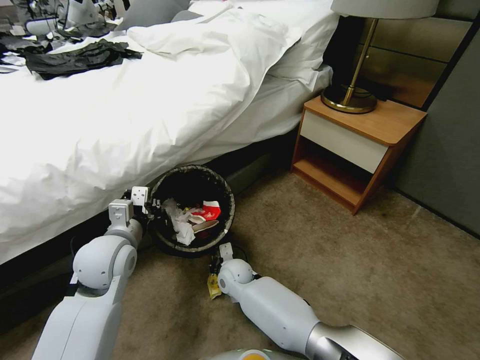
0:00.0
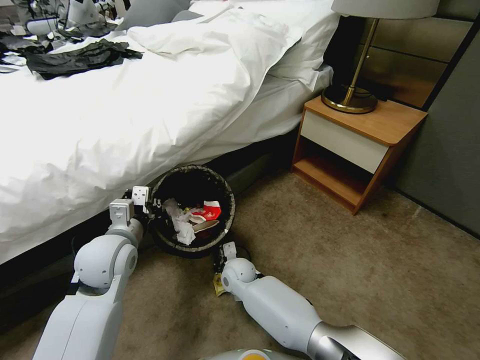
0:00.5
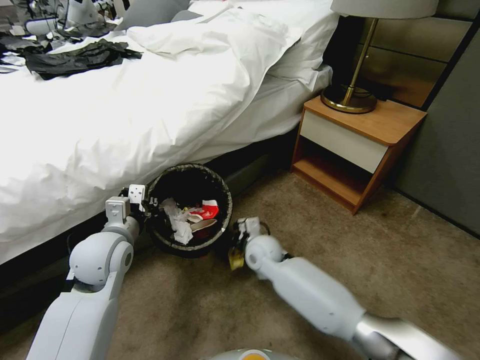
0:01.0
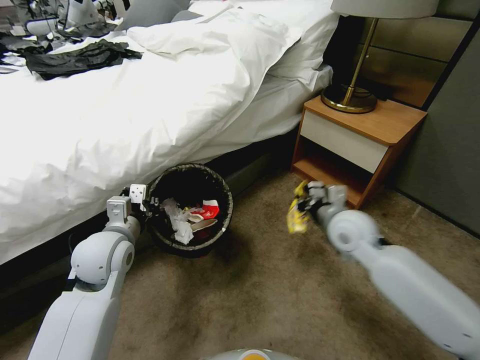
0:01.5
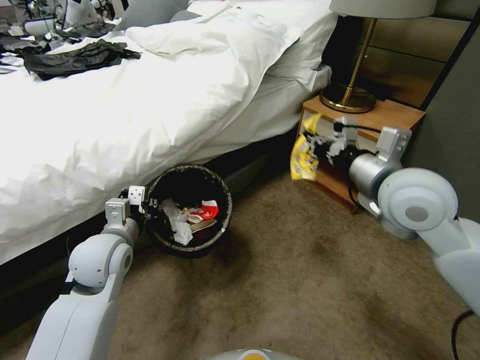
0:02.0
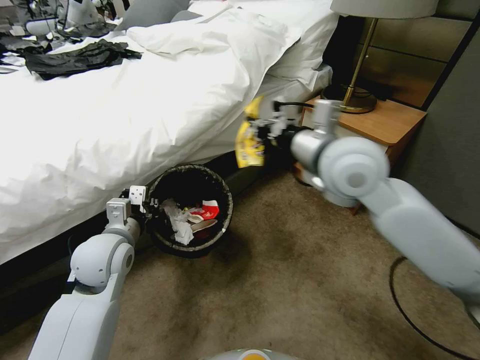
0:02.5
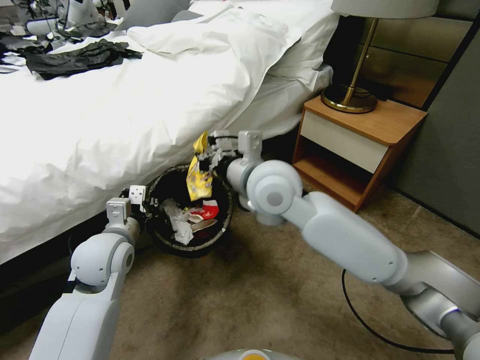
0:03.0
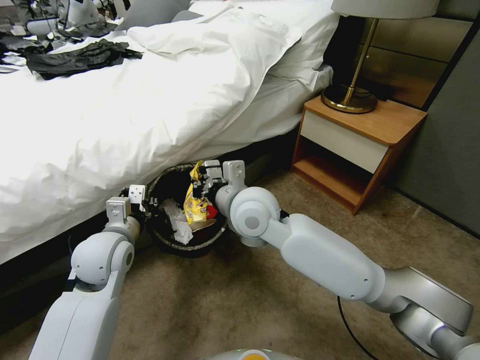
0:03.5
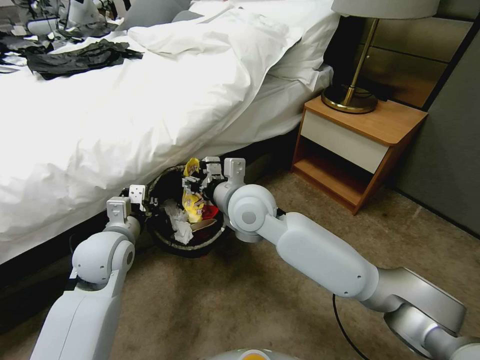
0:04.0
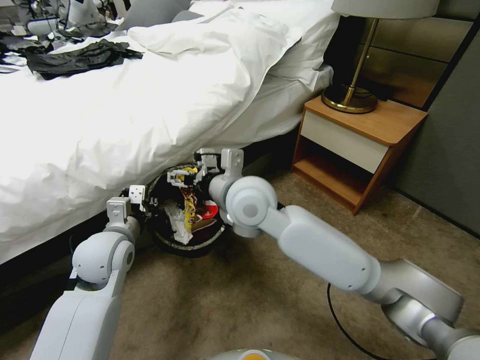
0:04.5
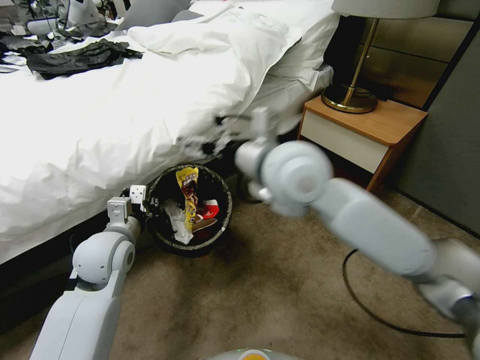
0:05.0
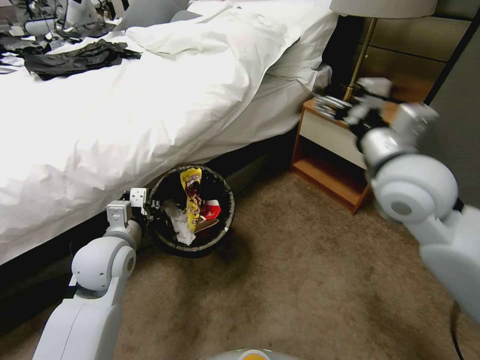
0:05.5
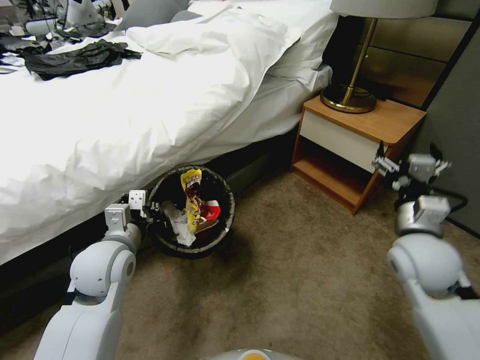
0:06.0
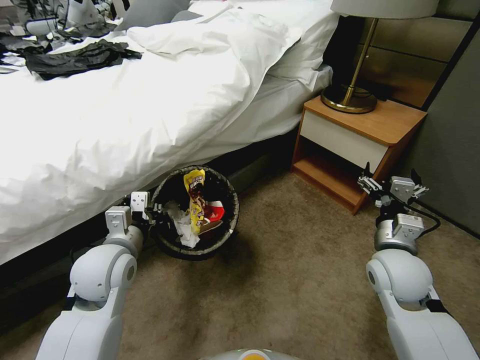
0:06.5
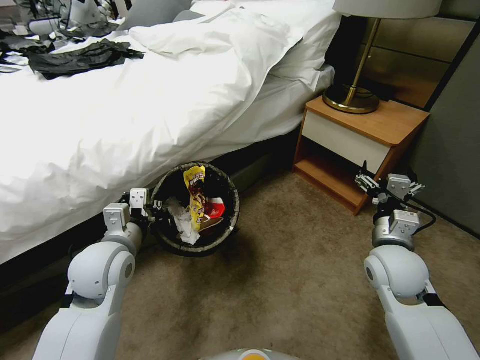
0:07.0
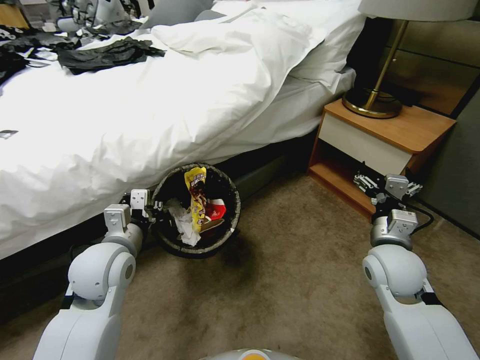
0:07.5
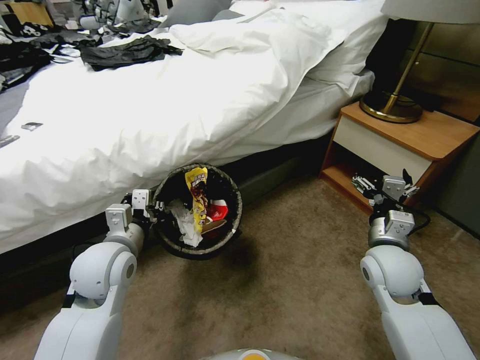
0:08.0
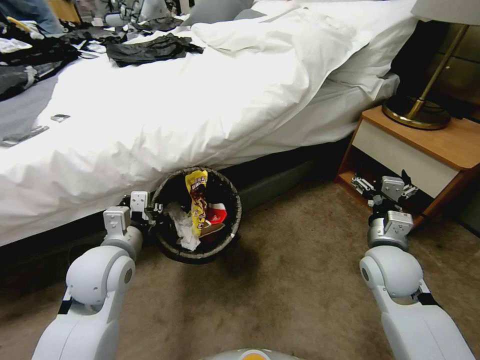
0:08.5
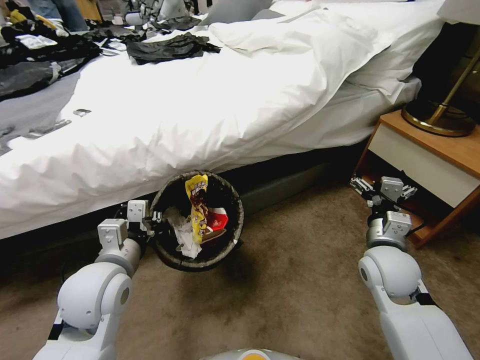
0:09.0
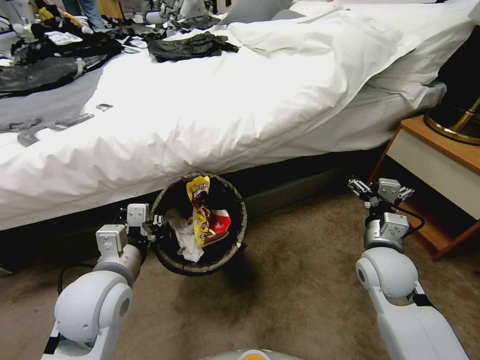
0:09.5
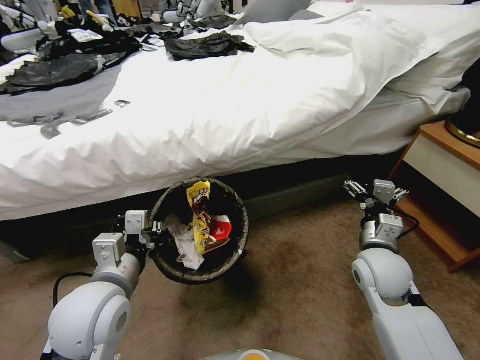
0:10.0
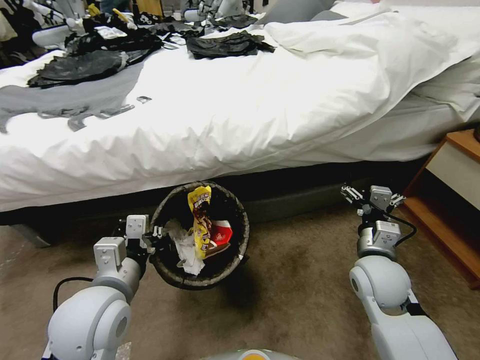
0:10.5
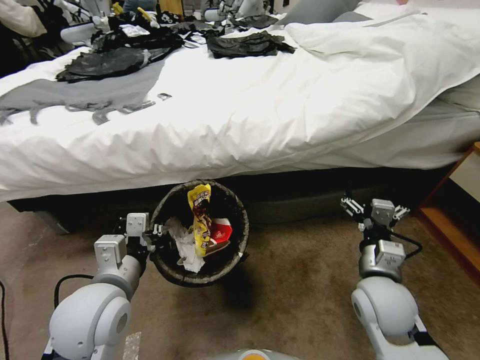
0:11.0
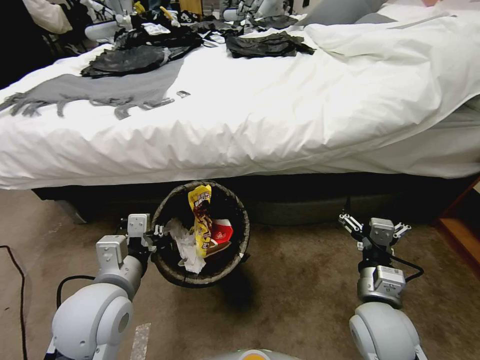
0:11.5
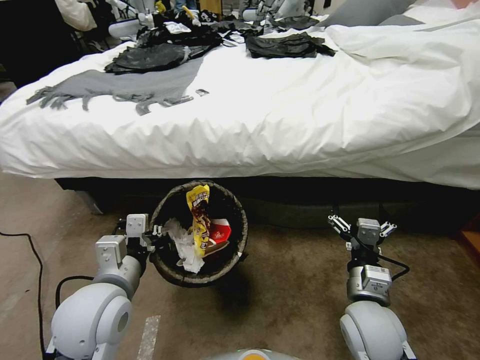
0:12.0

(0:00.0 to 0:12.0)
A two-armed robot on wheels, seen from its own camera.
Task of the whole recording: Pick up the trash bin, then pick up the garbage from the floor and place it into the trash bin.
0:00.0 - 0:02.0: The right gripper goes approximately 50 cm upward and to the right, and closes.
0:02.0 - 0:04.0: The right gripper moves to the left and downward, about 25 cm, and opens.
0:04.0 - 0:06.0: The right gripper moves to the right, approximately 30 cm, and opens up.
0:06.0 - 0:08.0: The right gripper moves downward, about 5 cm.
0:08.0 - 0:10.0: The left gripper is displaced backward by some 10 cm.
0:10.0 - 0:12.0: The right gripper is displaced backward by roughly 10 cm.

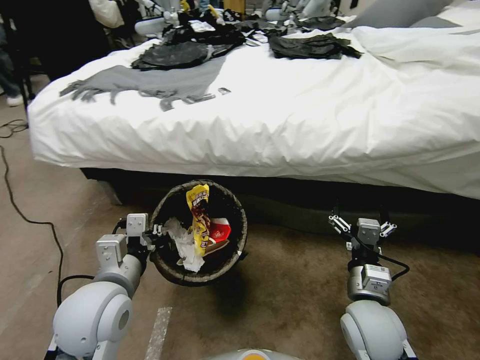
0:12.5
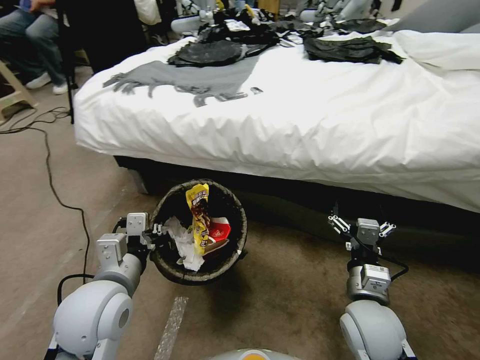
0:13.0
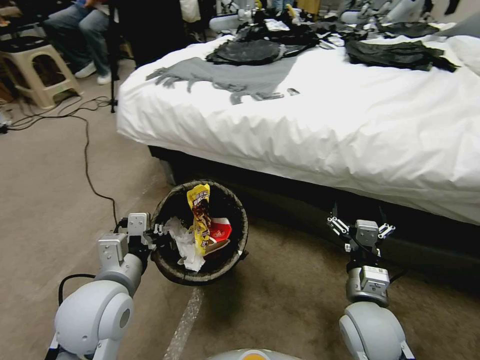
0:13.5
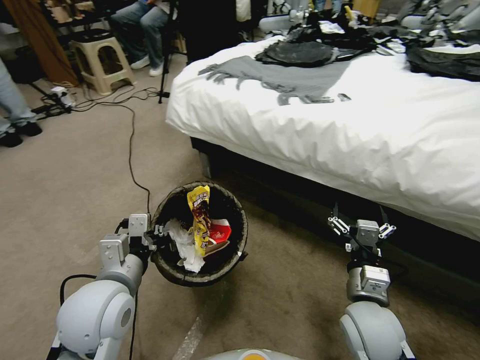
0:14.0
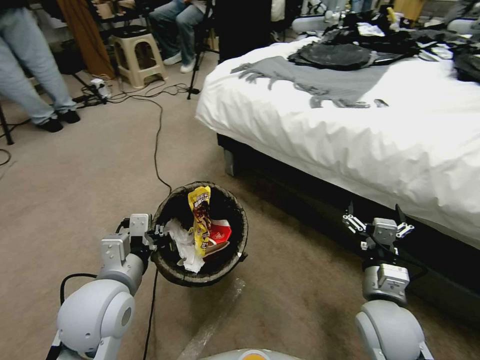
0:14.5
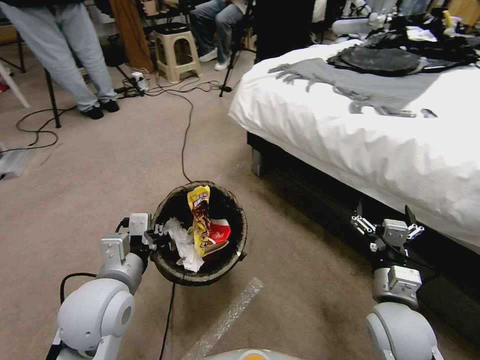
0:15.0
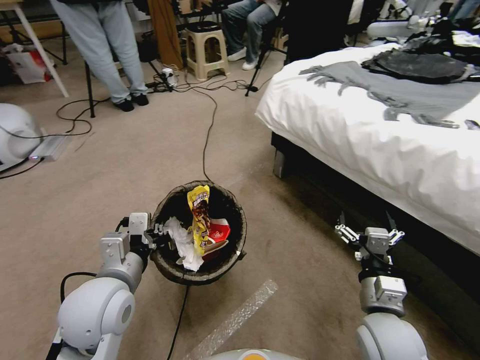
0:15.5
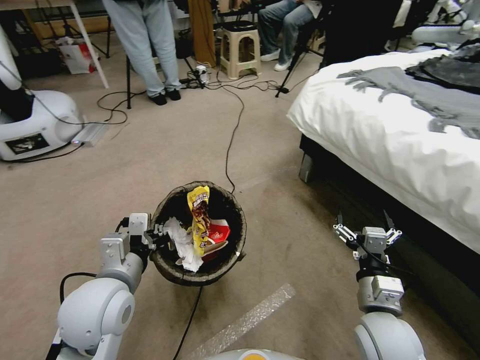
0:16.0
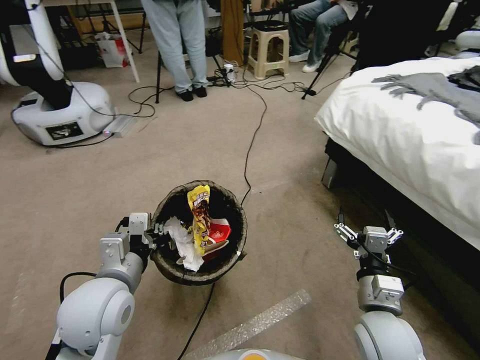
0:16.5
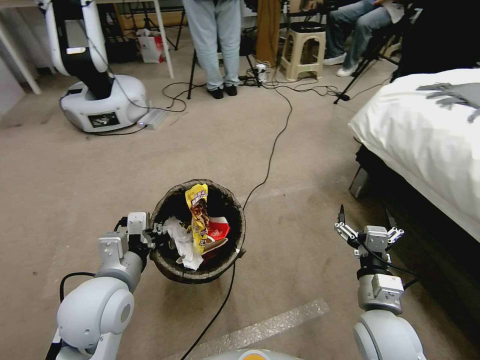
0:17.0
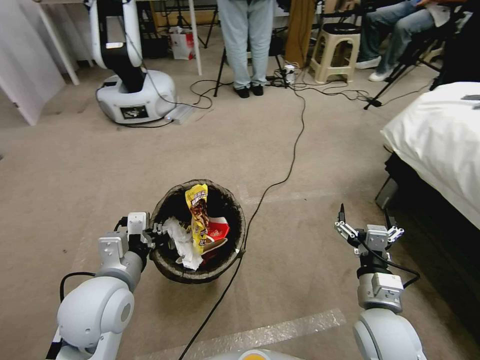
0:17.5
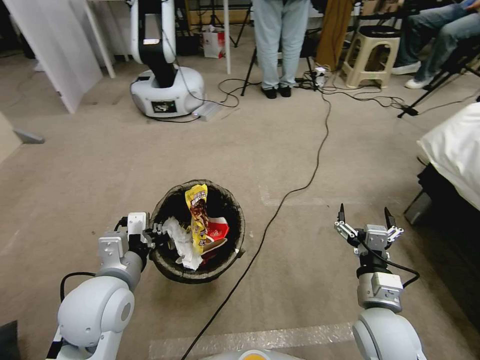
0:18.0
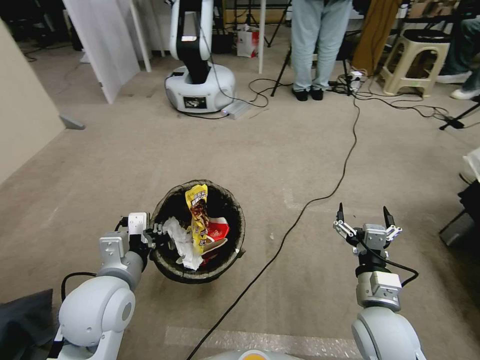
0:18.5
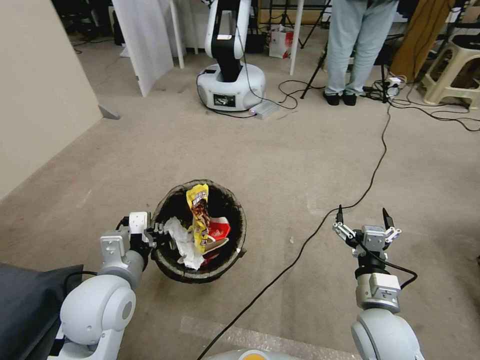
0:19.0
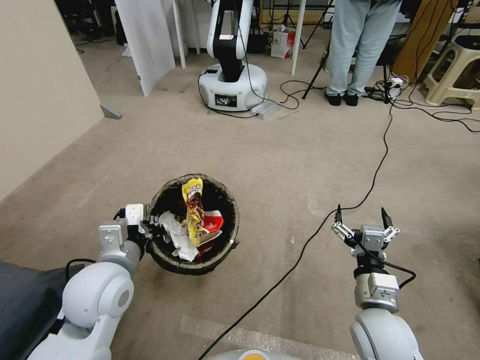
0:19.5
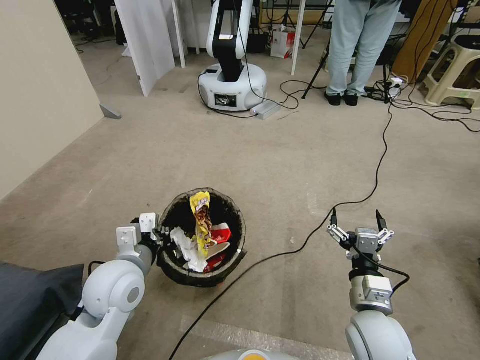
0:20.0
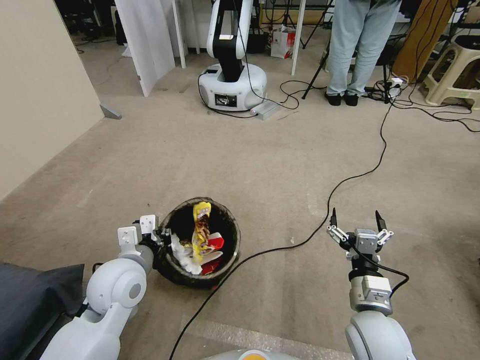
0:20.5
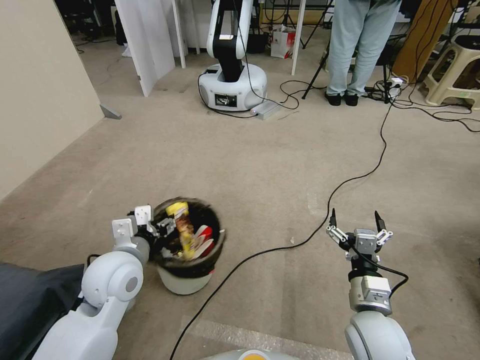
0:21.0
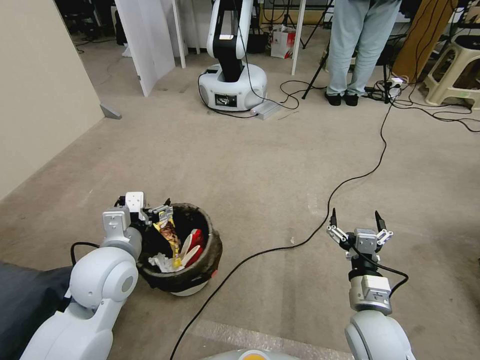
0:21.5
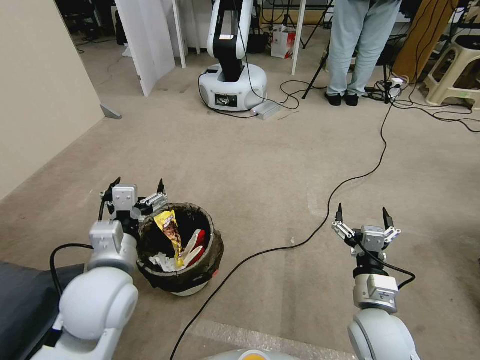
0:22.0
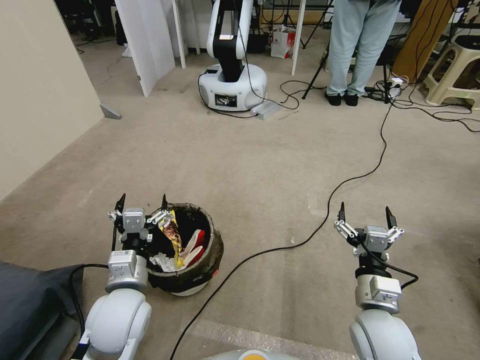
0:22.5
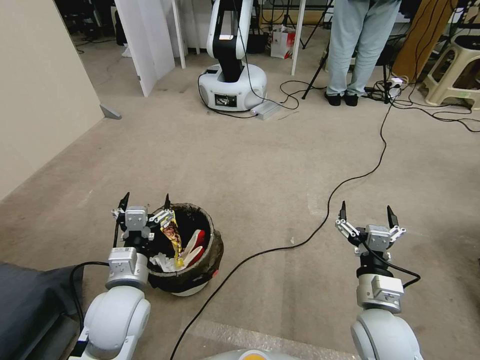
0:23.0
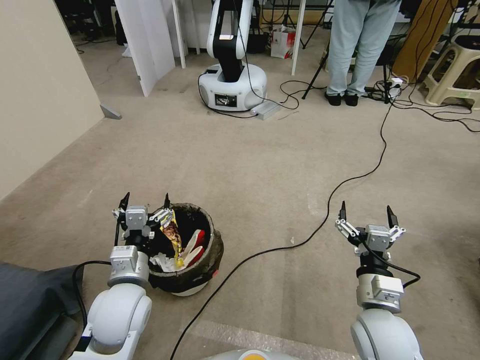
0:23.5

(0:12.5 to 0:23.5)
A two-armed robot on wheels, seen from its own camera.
Task of the whole recording: Pick up the trash bin, then pick up the garbage from the floor and place it into the trash bin.
0:20.0 - 0:21.5: The left gripper opens.
0:21.5 - 0:23.5: The left gripper goes roughly 10 cm downward.

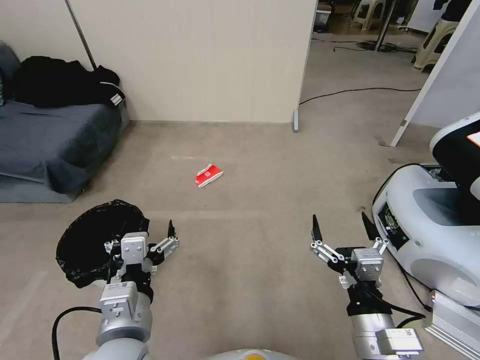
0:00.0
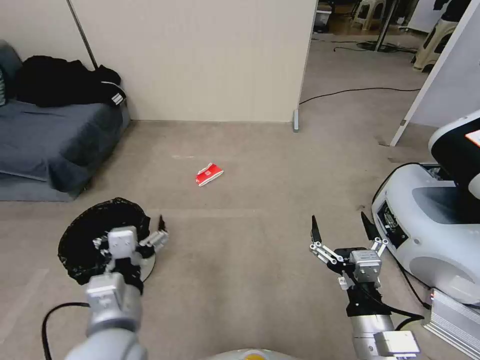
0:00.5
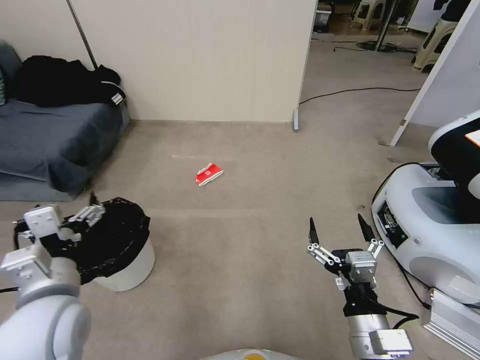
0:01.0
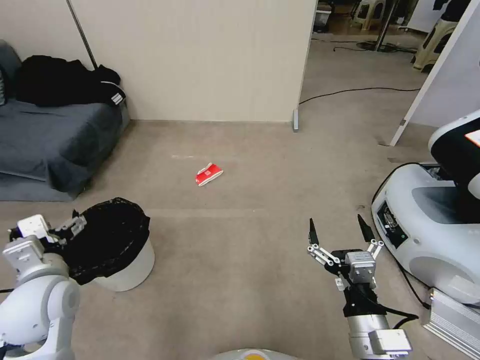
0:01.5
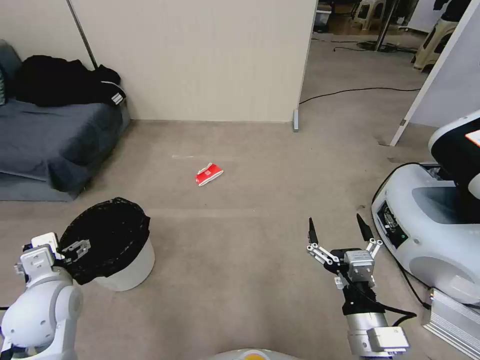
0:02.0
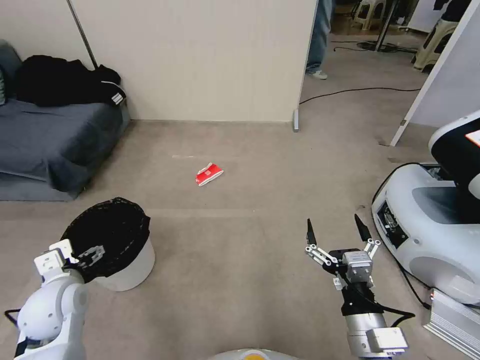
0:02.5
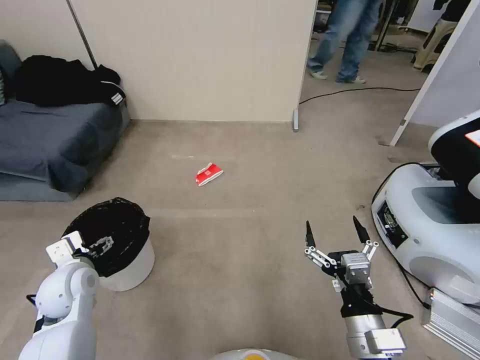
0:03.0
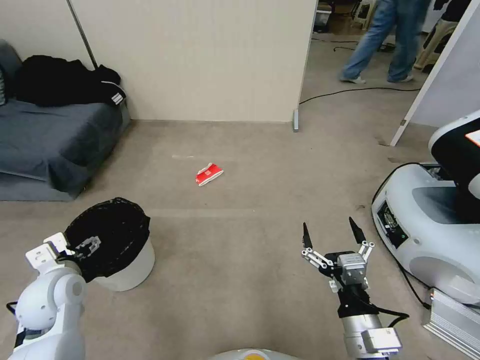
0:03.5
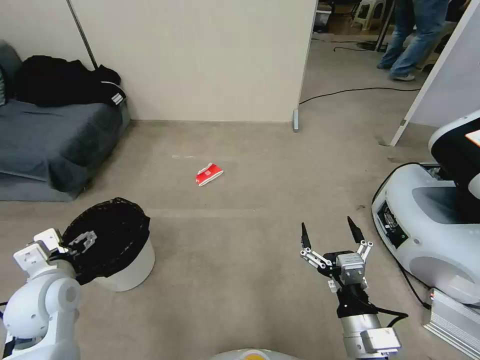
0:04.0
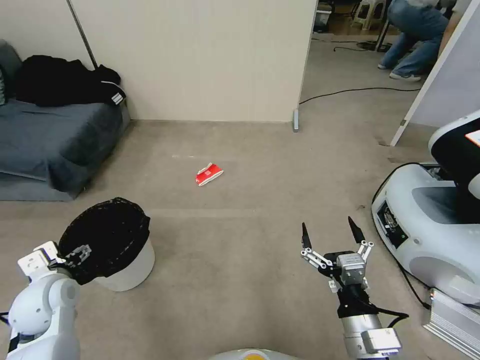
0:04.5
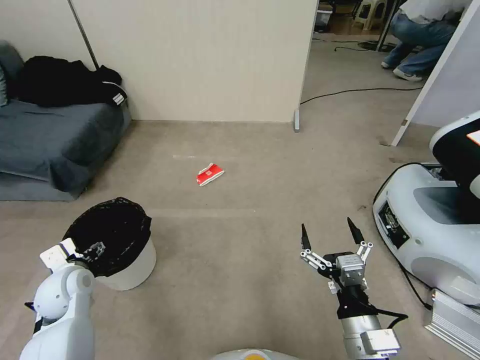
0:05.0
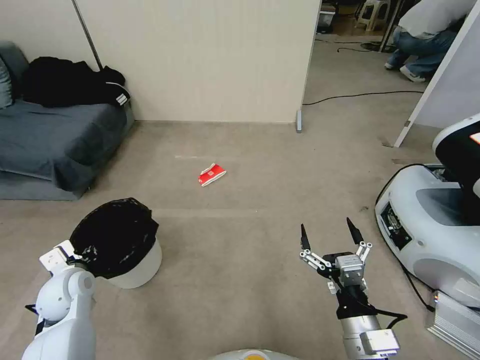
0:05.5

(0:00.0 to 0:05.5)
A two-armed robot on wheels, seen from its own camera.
Task of the whole recording: Pick up the trash bin, then pick up the garbage from the floor and place it into the trash bin.
0:00.0 - 0:02.0: The left gripper heads to the left and forward, covering about 20 cm.
0:03.5 - 0:05.5: The left gripper moves downward, some 5 cm, and closes its fingers.
